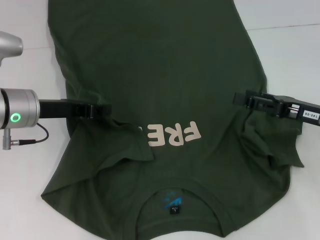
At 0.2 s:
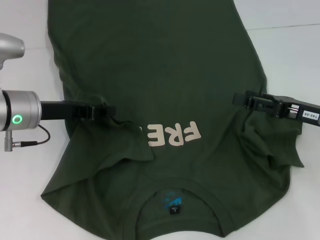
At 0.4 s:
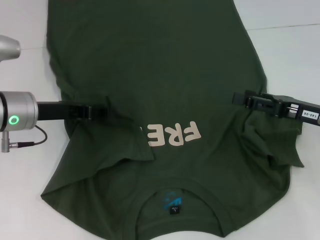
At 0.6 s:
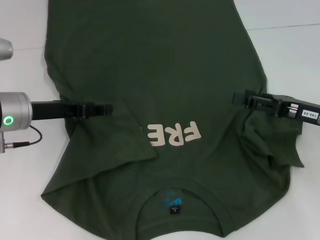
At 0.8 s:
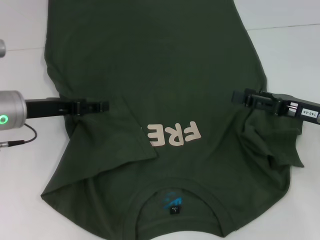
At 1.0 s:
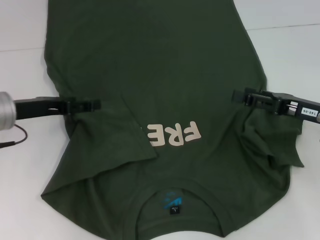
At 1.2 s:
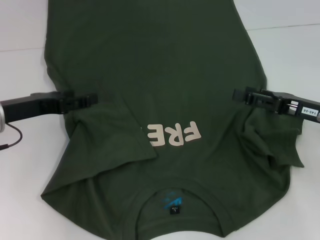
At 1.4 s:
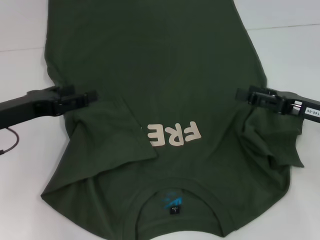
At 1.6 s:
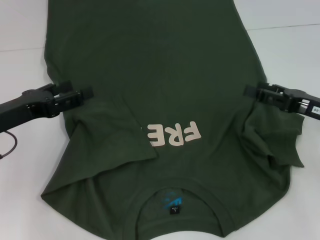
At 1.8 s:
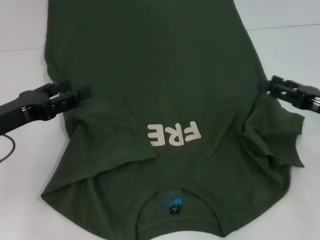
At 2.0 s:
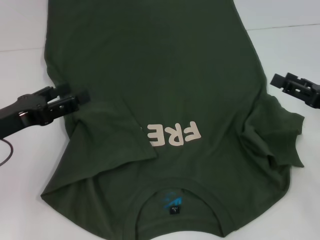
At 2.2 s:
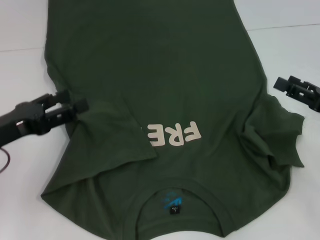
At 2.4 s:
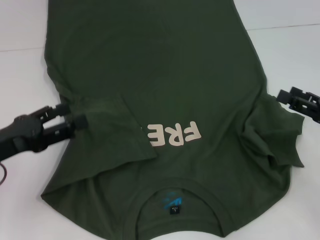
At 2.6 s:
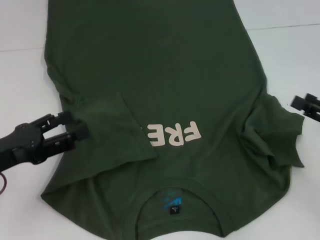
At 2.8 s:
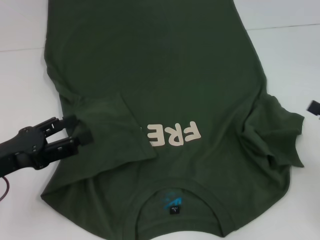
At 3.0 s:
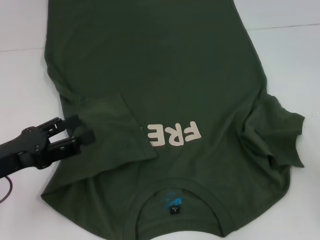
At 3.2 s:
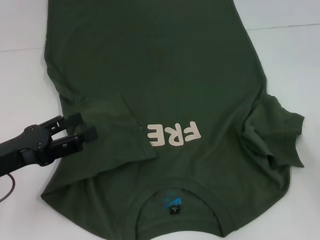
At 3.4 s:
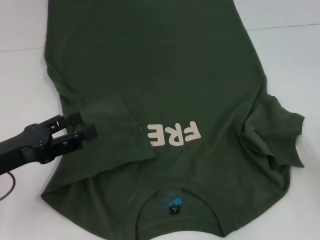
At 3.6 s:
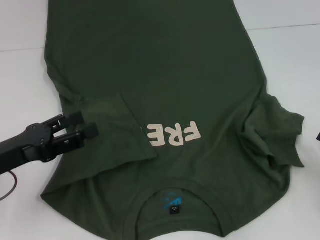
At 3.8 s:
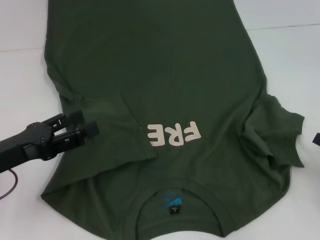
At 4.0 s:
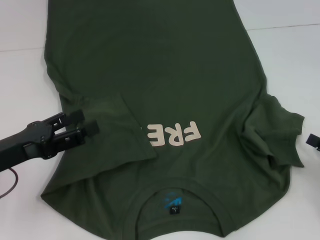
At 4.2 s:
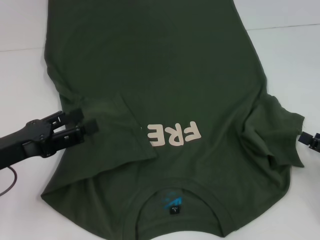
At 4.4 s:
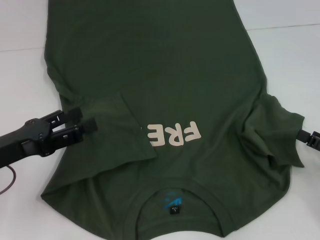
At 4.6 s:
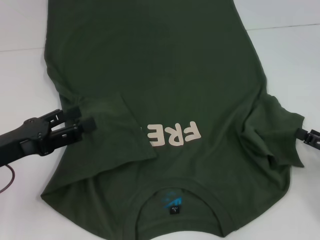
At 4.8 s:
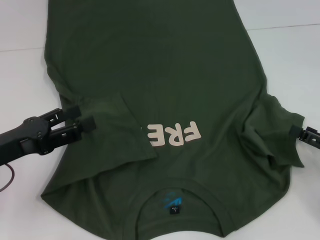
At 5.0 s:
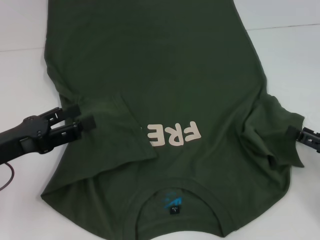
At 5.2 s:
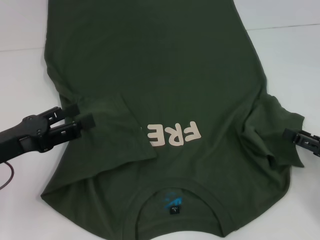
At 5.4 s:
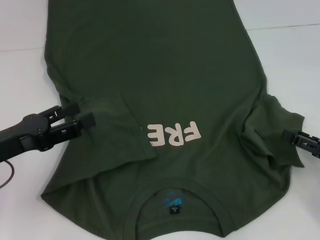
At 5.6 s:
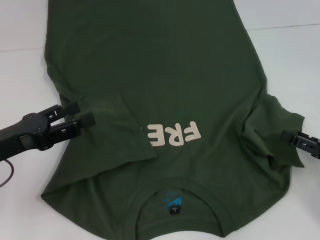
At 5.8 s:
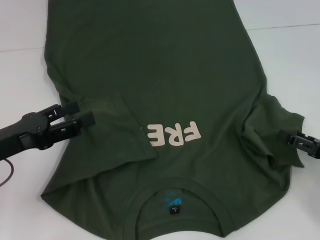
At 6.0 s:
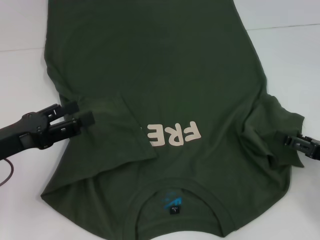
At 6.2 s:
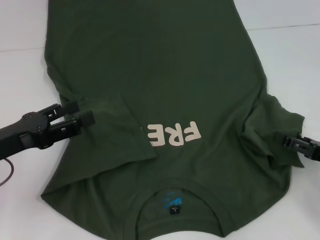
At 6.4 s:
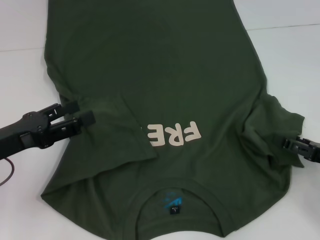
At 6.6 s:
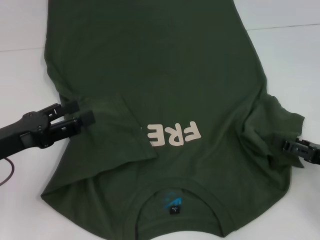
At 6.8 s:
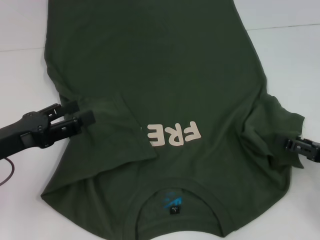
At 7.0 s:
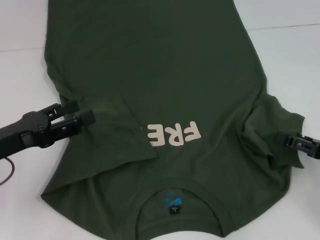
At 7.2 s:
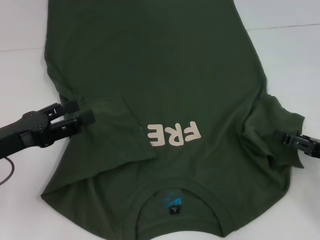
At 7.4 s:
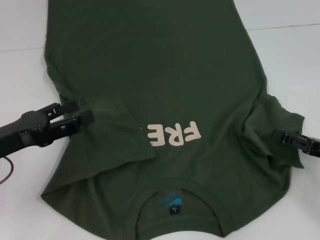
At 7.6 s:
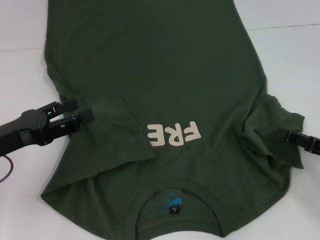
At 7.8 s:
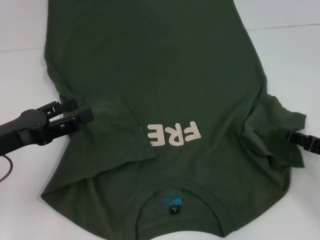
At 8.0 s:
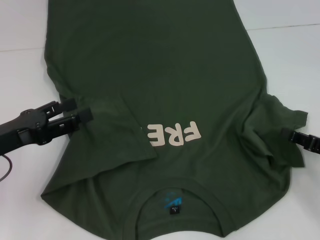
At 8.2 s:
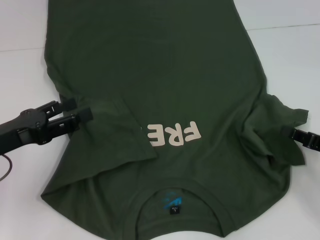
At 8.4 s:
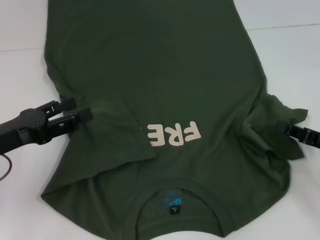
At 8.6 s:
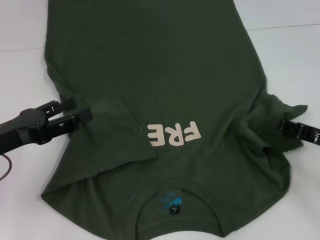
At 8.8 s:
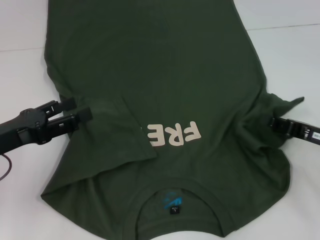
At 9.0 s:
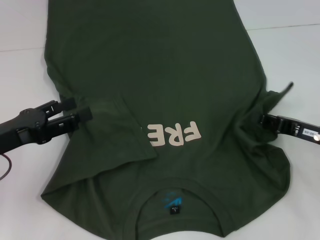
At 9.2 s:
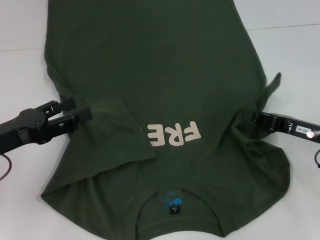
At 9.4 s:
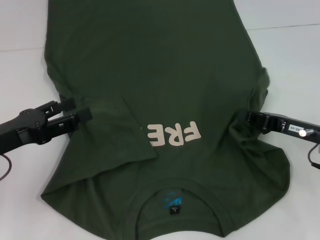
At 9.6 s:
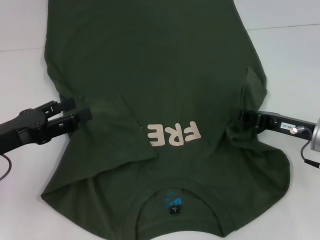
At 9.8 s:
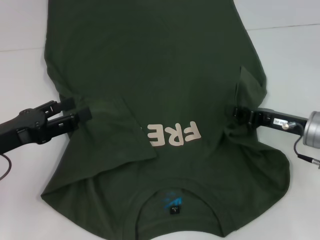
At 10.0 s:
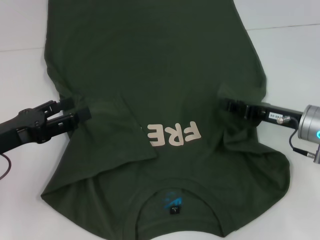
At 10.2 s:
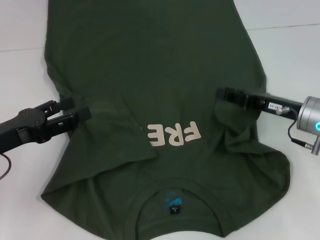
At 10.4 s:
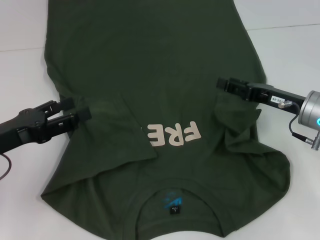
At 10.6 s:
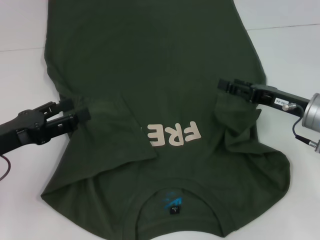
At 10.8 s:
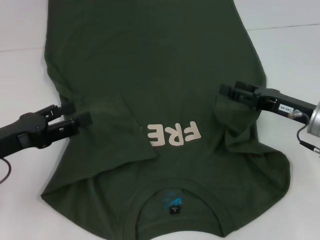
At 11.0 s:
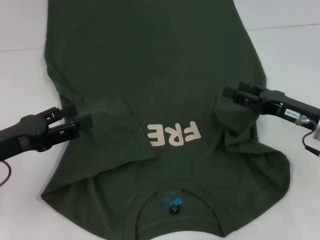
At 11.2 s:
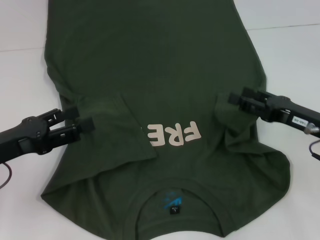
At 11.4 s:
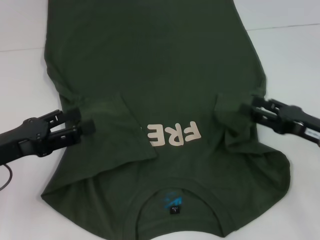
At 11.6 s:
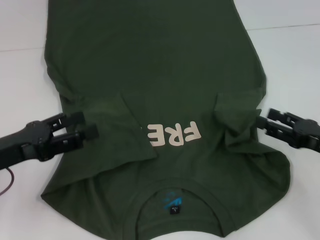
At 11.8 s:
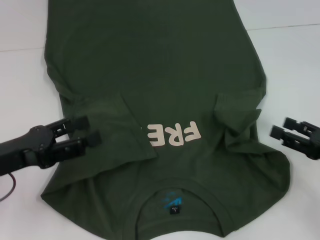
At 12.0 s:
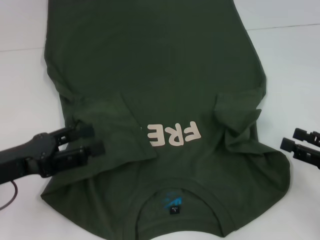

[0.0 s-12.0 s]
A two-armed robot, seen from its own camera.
Step, 0.6 to 10.2 s: Fold the bottom right sleeve with your right hand.
0.0 to 1.6 s: The left gripper moves backward and to the left, roughly 10 cm, and opens up.
1.6 to 3.0 s: The left gripper heads backward, covering some 5 cm; the right gripper shifts roughly 10 cm backward and to the right.
3.0 to 6.0 s: There are only small adjustments of the grippers.
6.0 to 7.6 s: Neither gripper changes place.
7.6 to 9.0 s: The right gripper ends up roughly 5 cm from where it was, and closes up.
9.0 to 10.4 s: The right gripper travels forward by roughly 5 cm, and opens.
10.4 to 12.0 s: The right gripper is displaced backward and to the right by about 15 cm, and opens.

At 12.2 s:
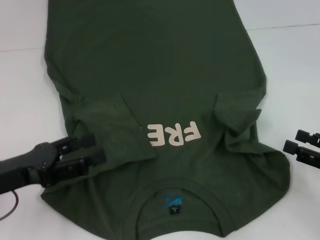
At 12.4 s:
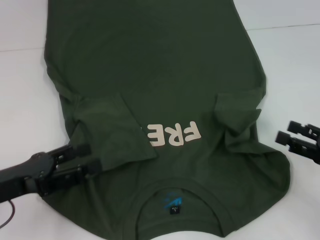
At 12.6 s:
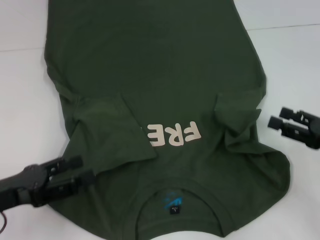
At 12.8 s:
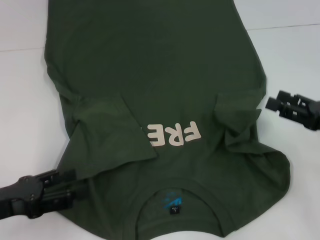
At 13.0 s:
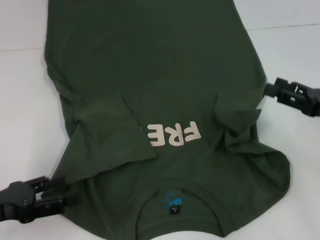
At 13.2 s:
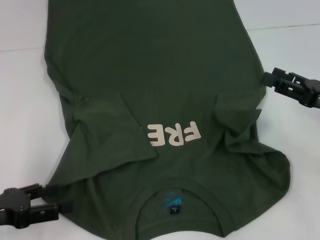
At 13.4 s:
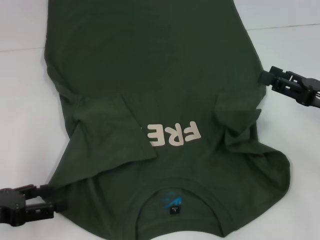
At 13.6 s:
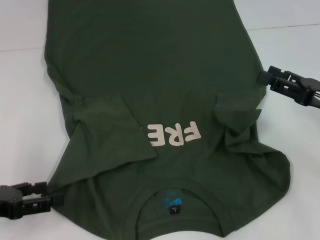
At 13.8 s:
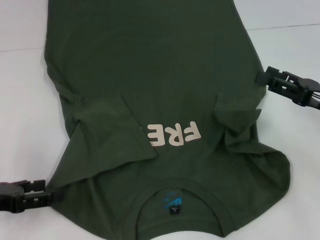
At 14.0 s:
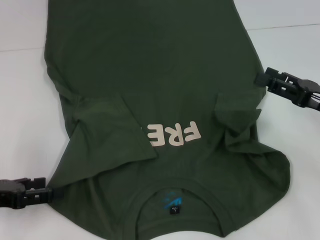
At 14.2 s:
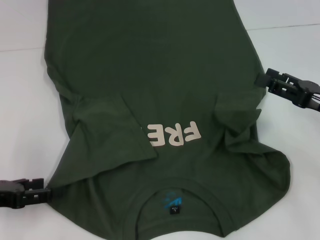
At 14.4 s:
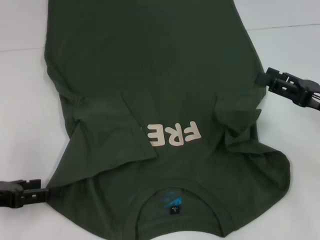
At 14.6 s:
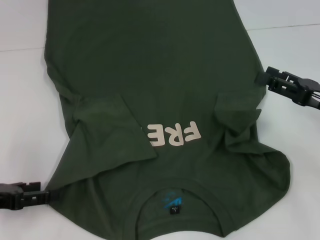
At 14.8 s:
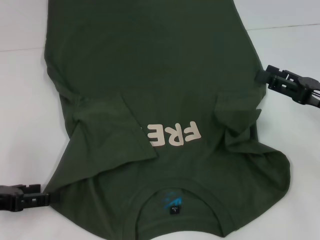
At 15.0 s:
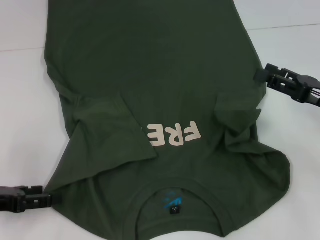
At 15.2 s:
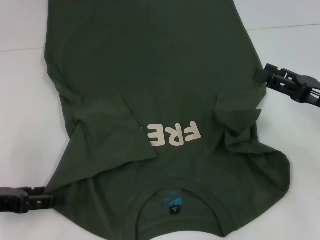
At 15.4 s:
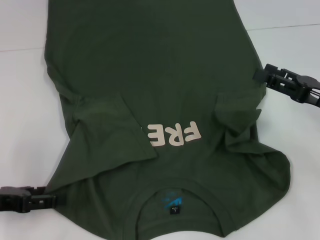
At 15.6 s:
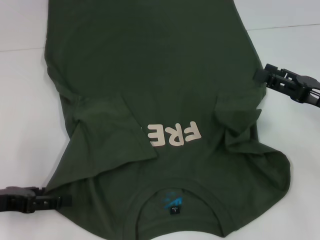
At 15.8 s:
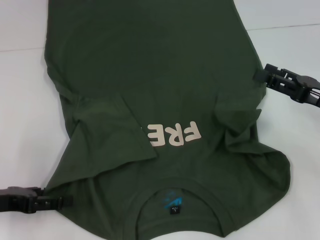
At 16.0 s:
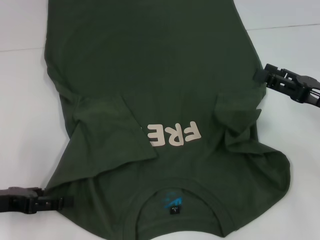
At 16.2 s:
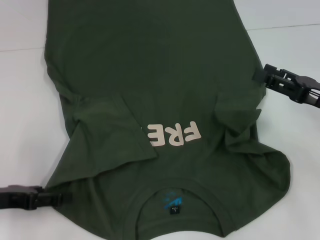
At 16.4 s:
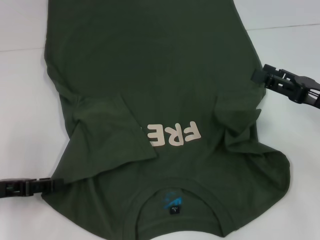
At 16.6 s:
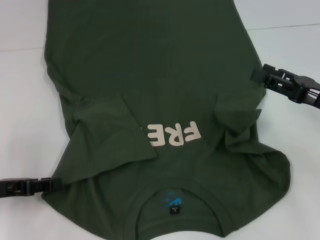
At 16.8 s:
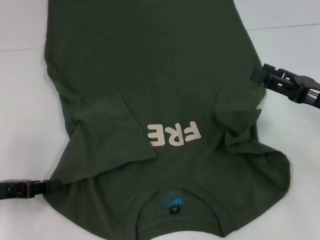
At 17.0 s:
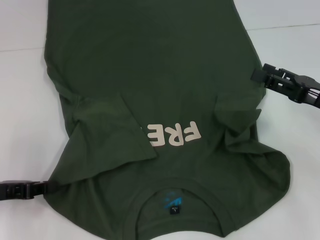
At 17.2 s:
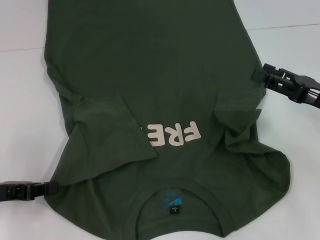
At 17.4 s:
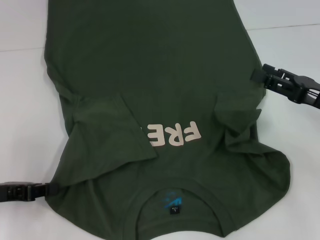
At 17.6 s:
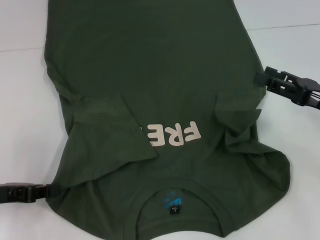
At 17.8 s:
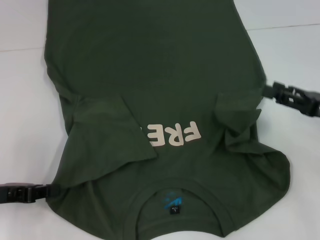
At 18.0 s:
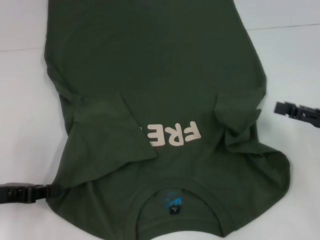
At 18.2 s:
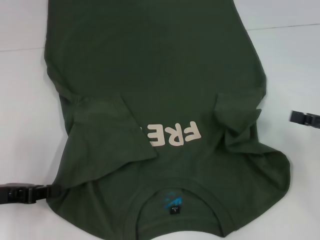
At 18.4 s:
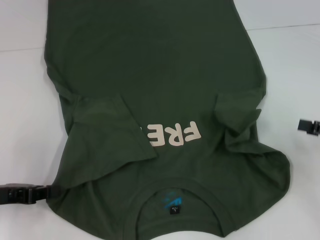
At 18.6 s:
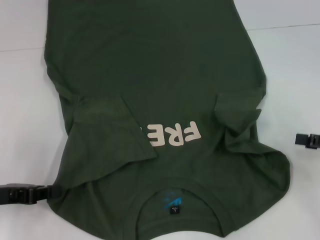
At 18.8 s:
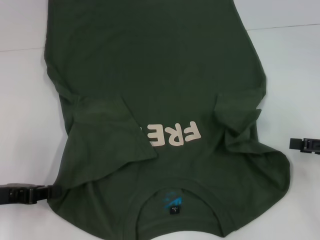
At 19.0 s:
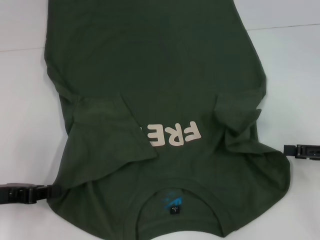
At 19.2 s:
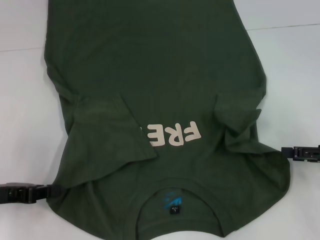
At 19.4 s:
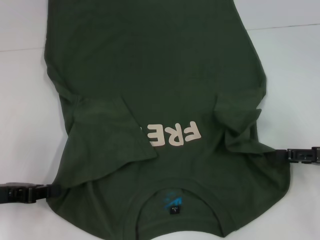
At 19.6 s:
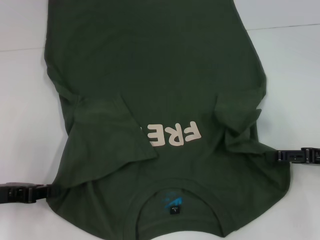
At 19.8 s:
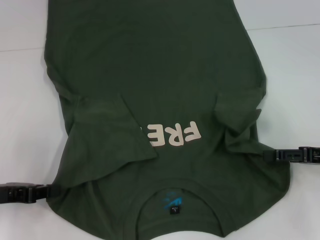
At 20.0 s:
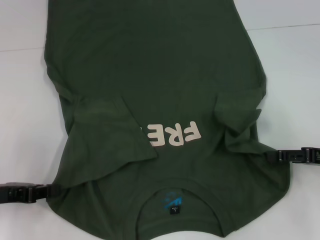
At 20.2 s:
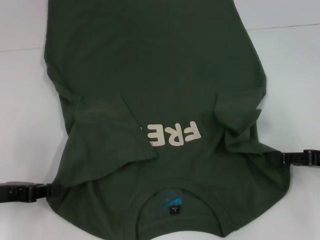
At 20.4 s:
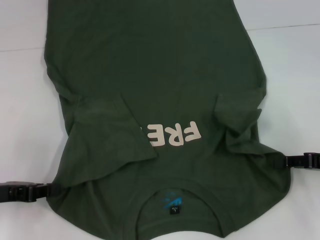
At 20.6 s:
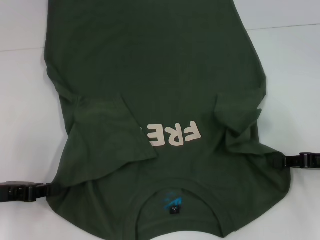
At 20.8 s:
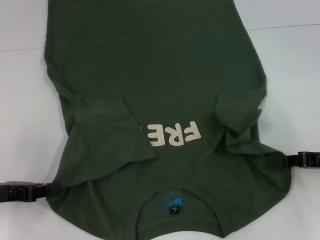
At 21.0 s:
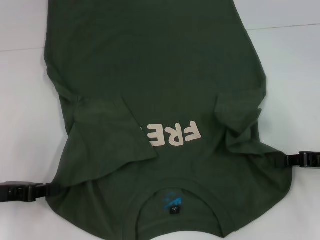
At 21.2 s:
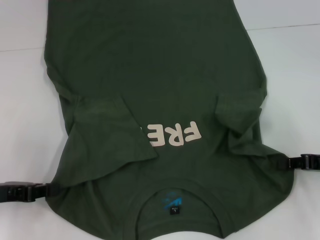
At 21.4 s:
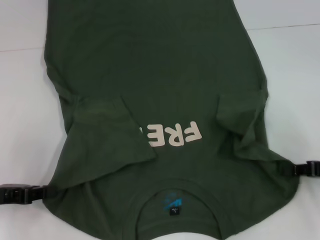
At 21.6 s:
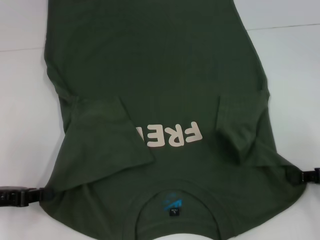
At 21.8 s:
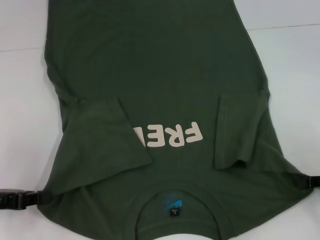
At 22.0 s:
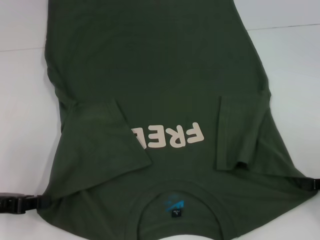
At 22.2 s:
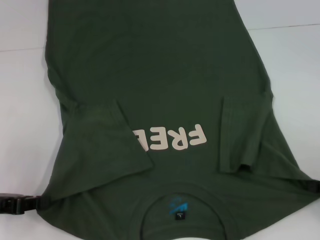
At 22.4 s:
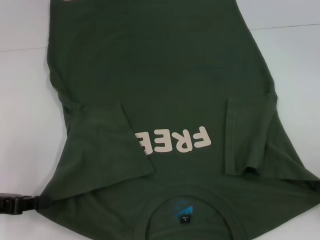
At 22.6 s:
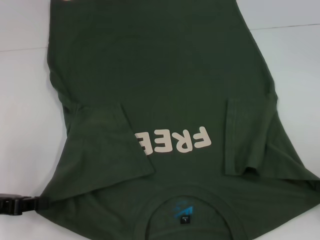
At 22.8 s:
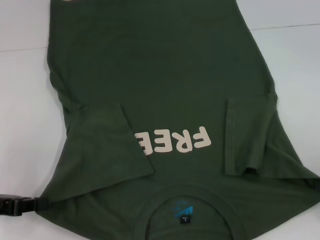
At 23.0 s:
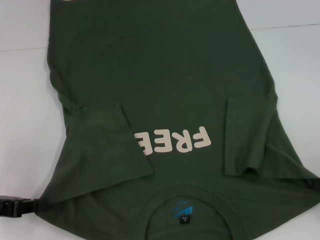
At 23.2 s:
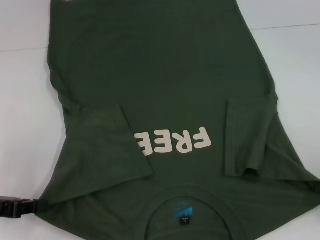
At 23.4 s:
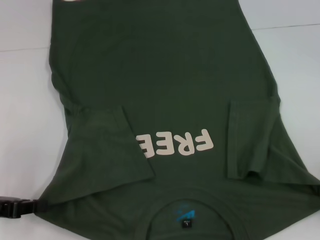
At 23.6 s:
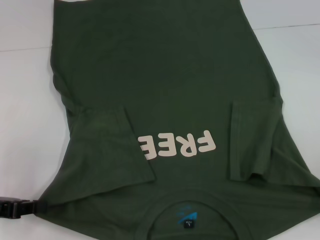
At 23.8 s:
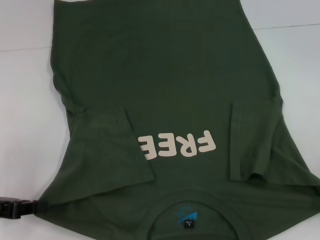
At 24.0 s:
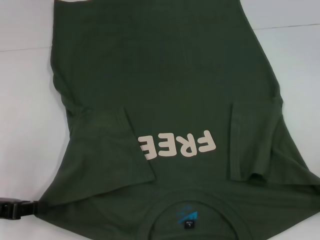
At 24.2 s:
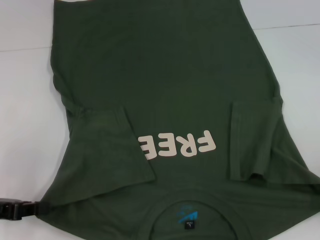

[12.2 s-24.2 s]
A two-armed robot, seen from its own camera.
Step, 12.2 to 17.4 s: Grab the bottom left corner with your left hand.
Step, 17.6 to 21.4 s: Grab the bottom right corner with your right hand.
12.2 to 13.8 s: The right gripper goes some 10 cm forward. The left gripper goes some 5 cm to the left.
13.8 to 15.2 s: The grippers make only small movements.
15.2 to 16.6 s: The left gripper closes.
16.6 to 18.2 s: The right gripper heads to the right, covering roughly 5 cm. Meanwhile the left gripper closes up.
18.2 to 19.8 s: The grippers make only small movements.
19.8 to 21.2 s: The right gripper closes up.
21.2 to 22.6 s: The right gripper shifts roughly 5 cm backward.
22.6 to 24.2 s: The grippers stay close to where they were, moving slightly.
